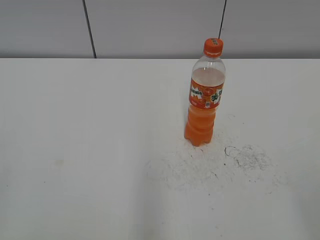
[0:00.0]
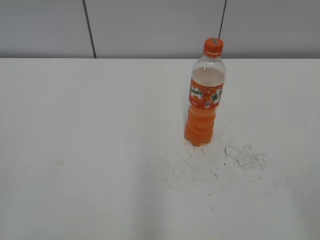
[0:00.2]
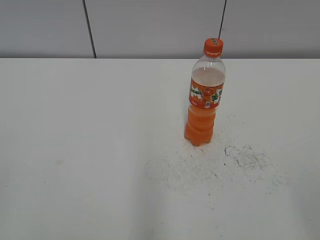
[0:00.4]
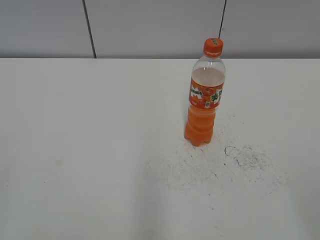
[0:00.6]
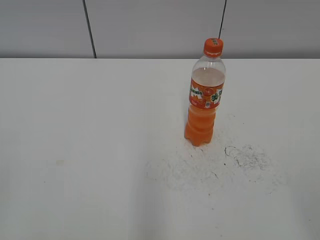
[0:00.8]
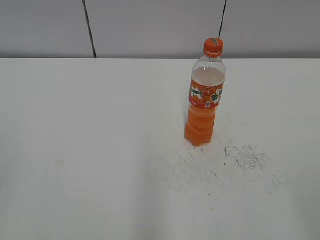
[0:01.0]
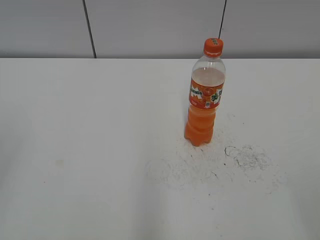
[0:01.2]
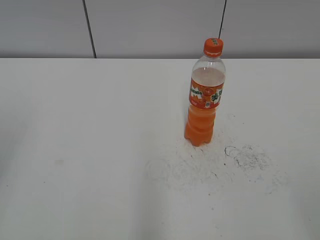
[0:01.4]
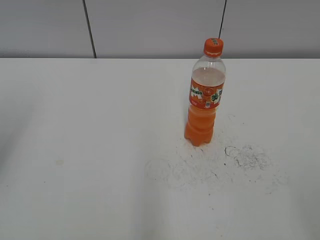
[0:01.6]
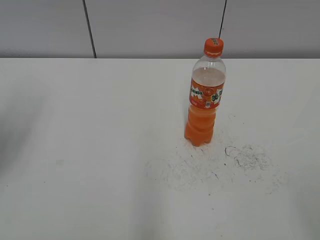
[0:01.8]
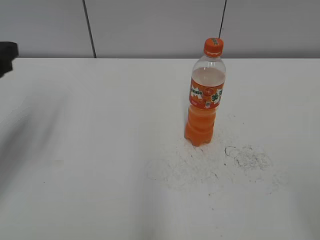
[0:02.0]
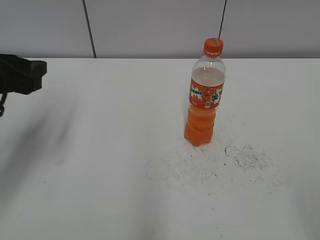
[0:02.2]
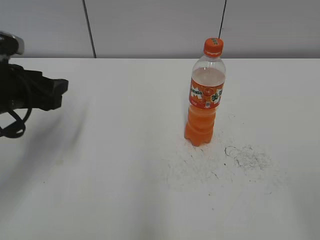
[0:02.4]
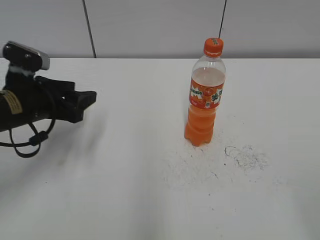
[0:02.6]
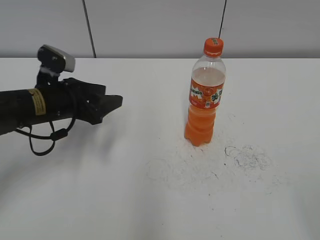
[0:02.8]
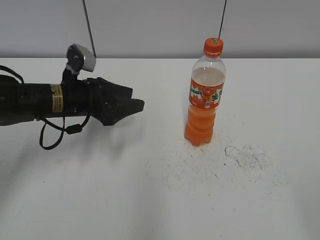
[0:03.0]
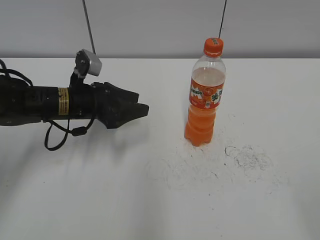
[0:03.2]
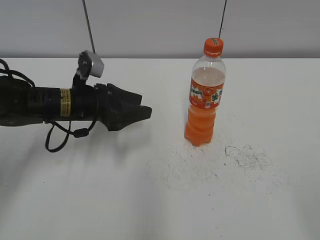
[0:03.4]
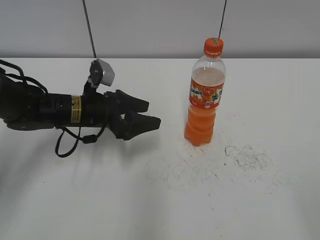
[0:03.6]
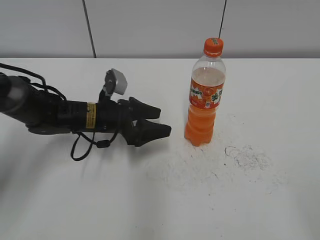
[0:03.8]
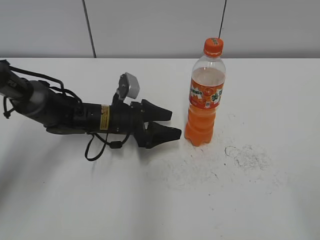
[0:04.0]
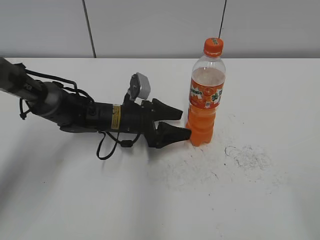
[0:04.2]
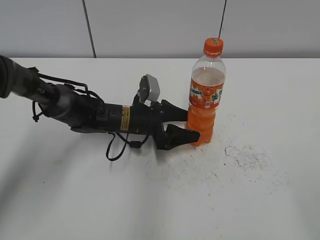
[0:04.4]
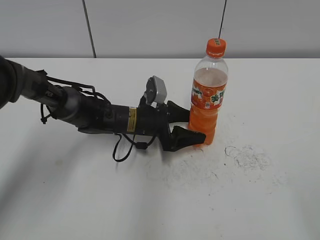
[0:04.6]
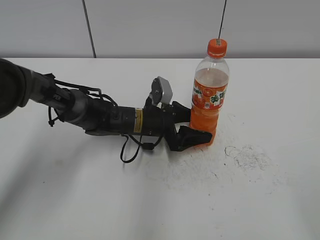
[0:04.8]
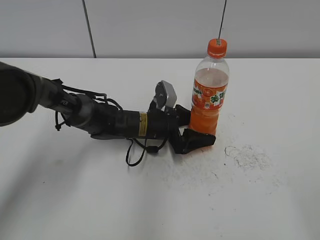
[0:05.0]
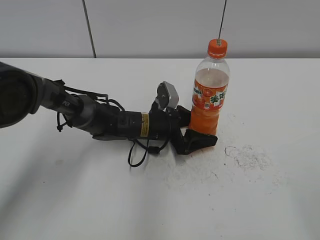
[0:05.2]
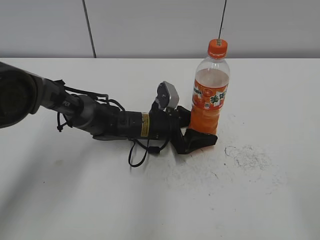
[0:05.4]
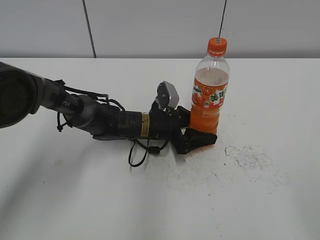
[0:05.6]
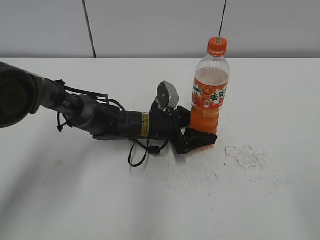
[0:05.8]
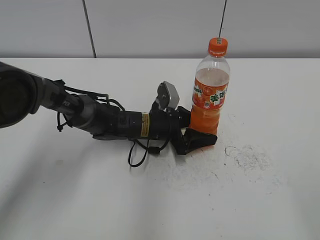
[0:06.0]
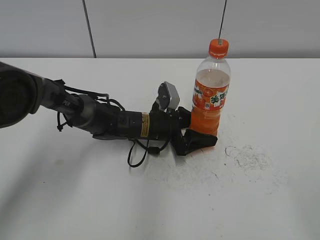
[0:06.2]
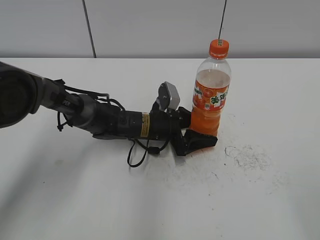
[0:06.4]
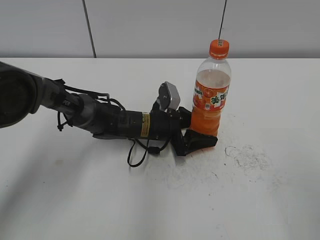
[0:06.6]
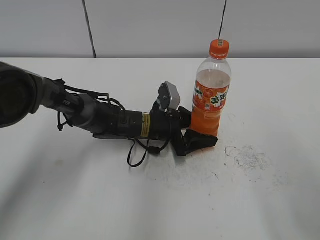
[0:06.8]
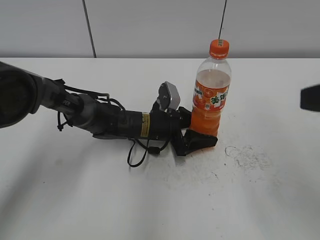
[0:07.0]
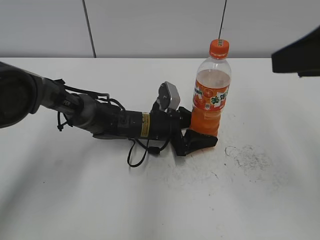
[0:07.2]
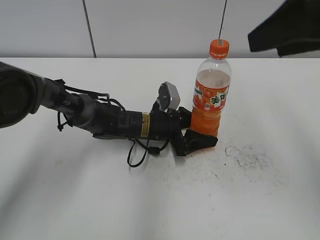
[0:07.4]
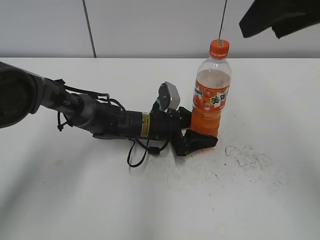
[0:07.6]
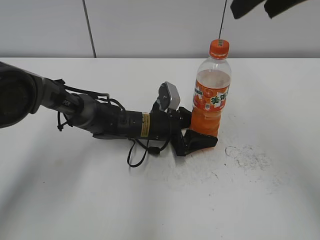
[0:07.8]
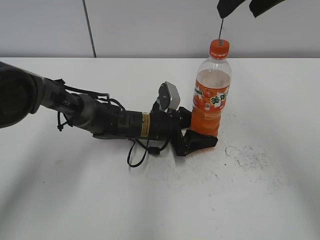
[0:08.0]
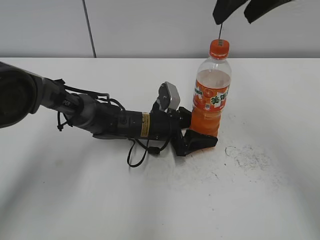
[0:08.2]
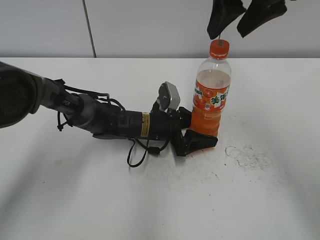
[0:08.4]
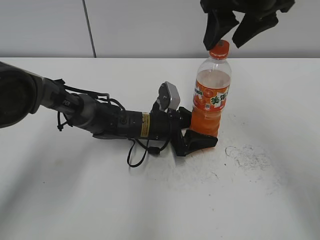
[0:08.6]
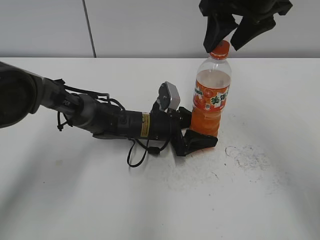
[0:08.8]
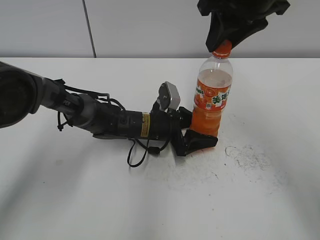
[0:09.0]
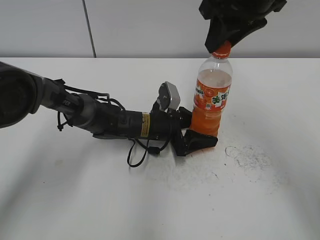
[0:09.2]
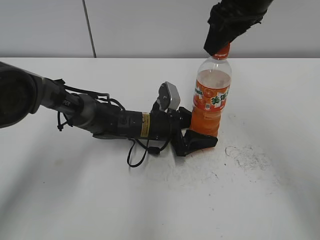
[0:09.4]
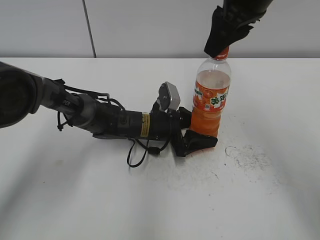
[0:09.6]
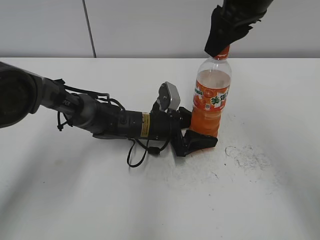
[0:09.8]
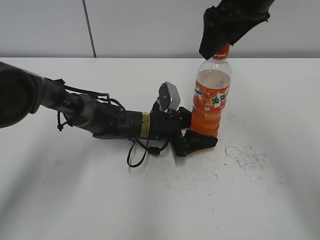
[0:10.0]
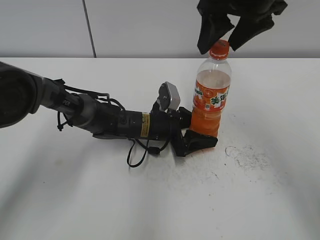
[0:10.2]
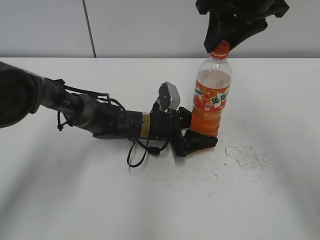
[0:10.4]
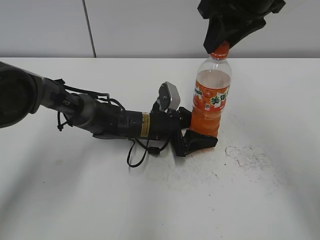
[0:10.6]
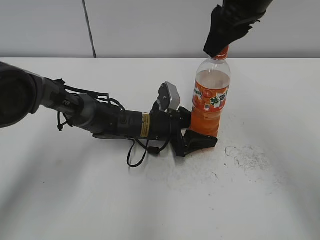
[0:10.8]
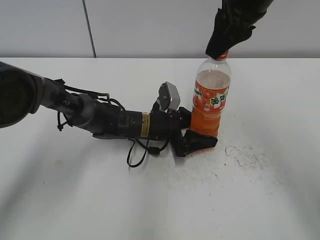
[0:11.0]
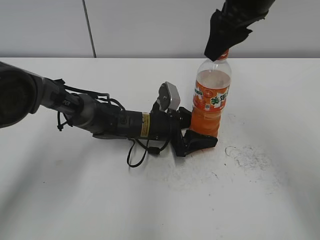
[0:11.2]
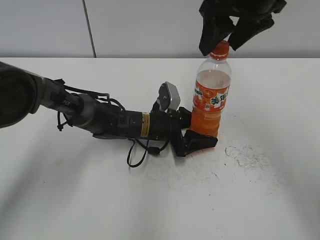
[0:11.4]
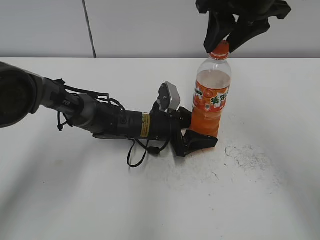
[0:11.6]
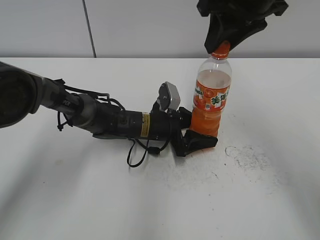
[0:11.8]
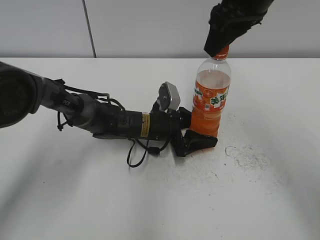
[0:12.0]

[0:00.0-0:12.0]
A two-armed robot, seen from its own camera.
Step, 0:00.0 to 0:06.6: Grab the Mirinda with the left hand.
0:01.6 to 0:03.0: The left gripper is displaced downward, forward and to the right by some 30 cm.
0:03.0 to 0:04.4: The left gripper is displaced to the right and downward by about 15 cm, and opens.
0:04.4 to 0:06.0: The grippers make only small movements.
0:06.0 to 0:07.6: The right gripper heads forward, upward and to the left, covering some 30 cm.
0:07.6 to 0:09.0: The right gripper shifts about 10 cm forward and downward, and closes.
0:09.0 to 0:10.4: The right gripper opens, then closes again.
0:10.4 to 0:12.0: The right gripper opens and closes again.

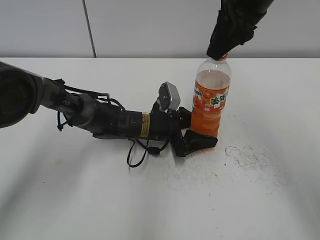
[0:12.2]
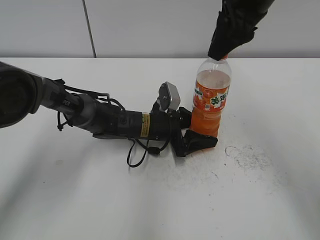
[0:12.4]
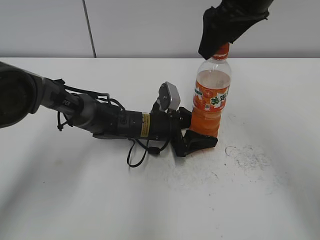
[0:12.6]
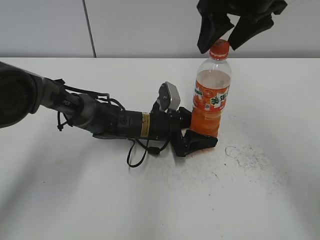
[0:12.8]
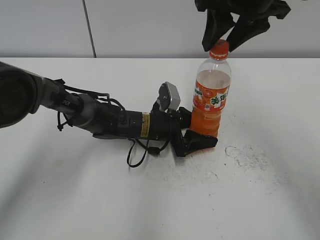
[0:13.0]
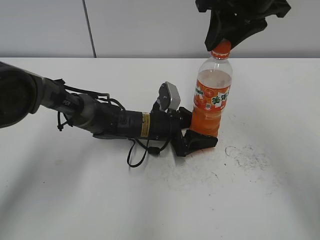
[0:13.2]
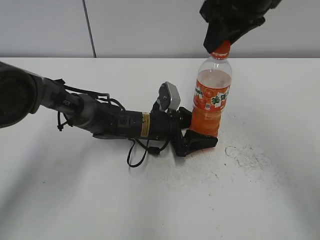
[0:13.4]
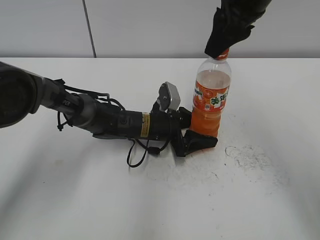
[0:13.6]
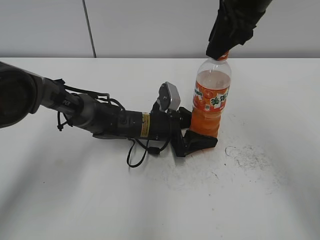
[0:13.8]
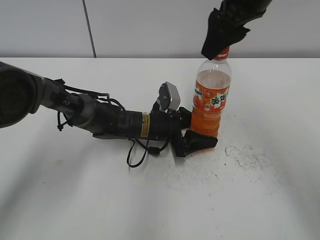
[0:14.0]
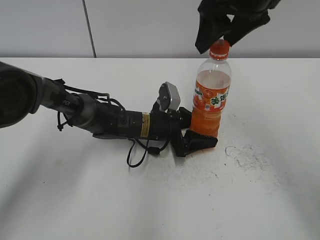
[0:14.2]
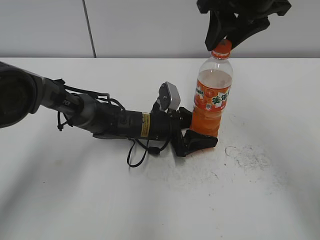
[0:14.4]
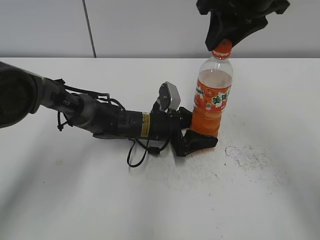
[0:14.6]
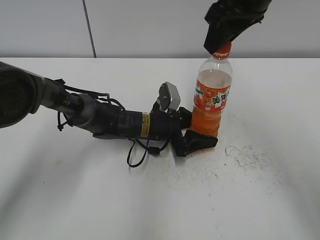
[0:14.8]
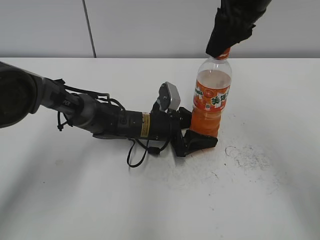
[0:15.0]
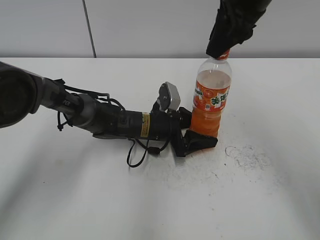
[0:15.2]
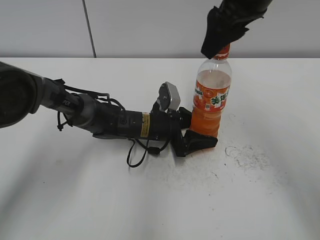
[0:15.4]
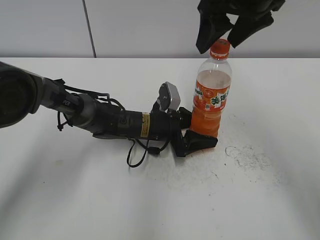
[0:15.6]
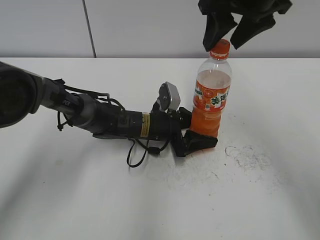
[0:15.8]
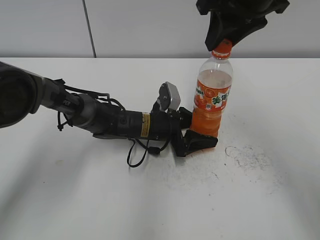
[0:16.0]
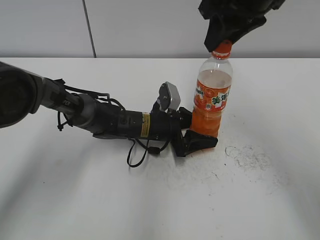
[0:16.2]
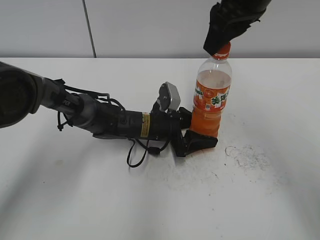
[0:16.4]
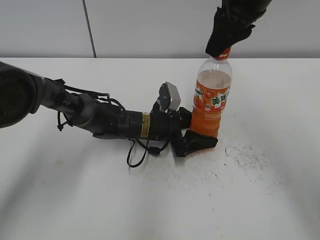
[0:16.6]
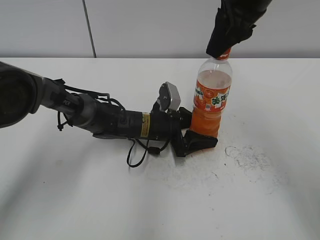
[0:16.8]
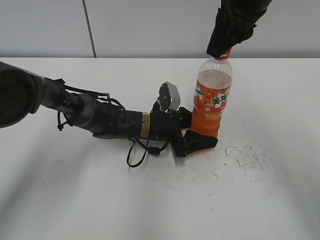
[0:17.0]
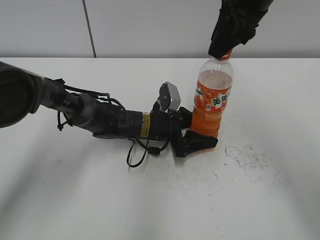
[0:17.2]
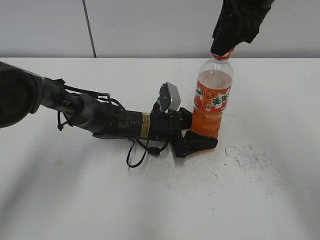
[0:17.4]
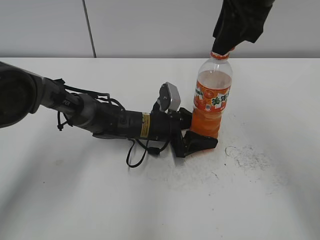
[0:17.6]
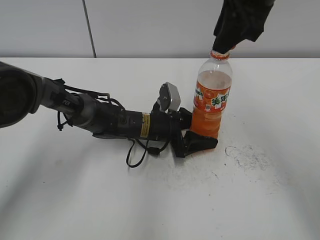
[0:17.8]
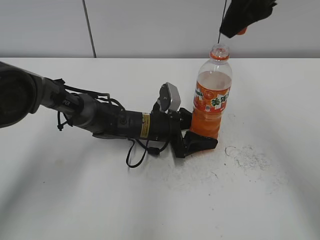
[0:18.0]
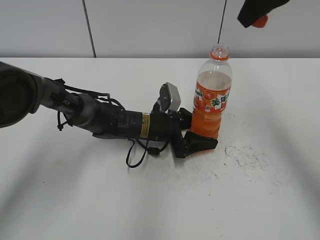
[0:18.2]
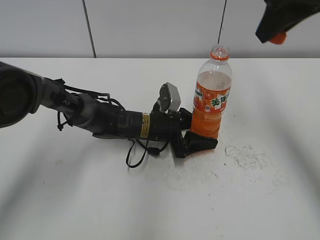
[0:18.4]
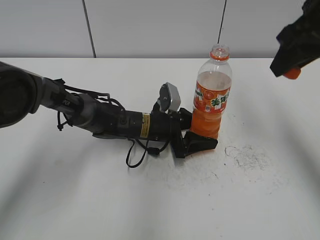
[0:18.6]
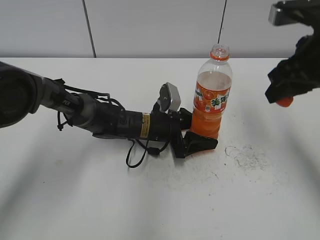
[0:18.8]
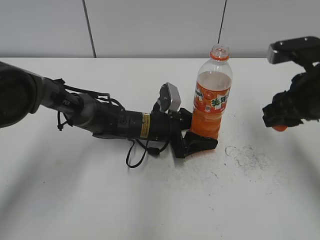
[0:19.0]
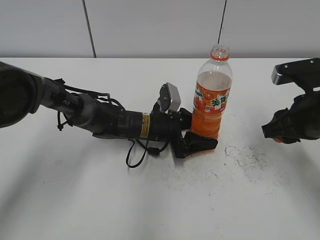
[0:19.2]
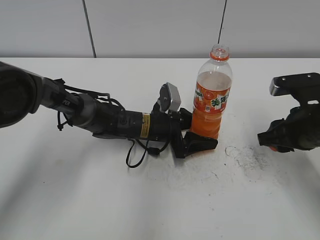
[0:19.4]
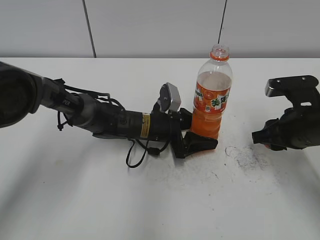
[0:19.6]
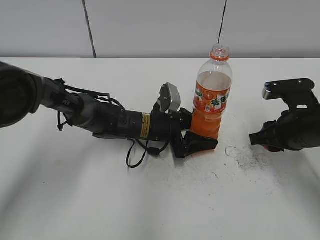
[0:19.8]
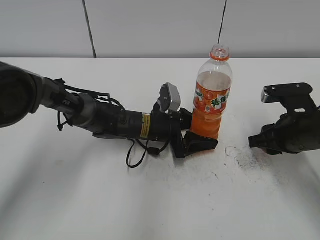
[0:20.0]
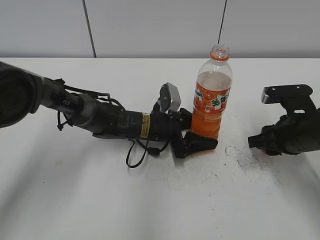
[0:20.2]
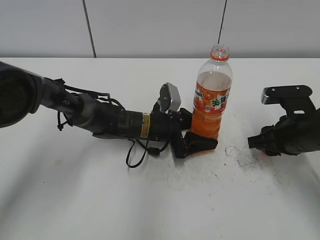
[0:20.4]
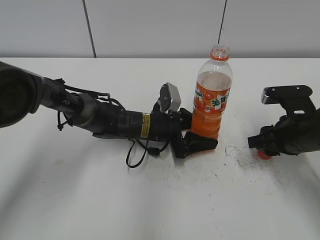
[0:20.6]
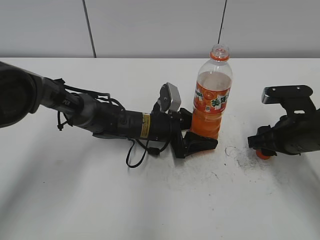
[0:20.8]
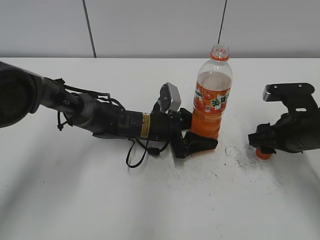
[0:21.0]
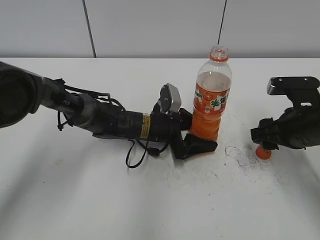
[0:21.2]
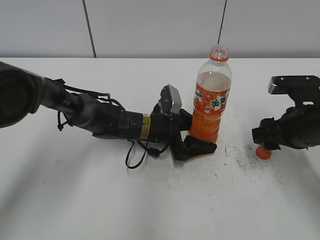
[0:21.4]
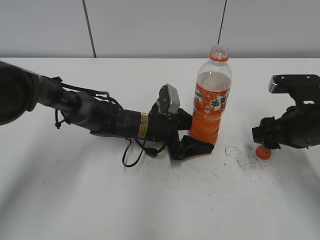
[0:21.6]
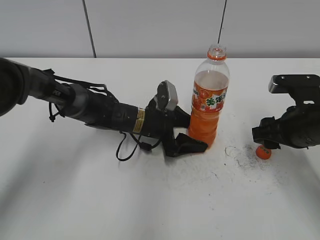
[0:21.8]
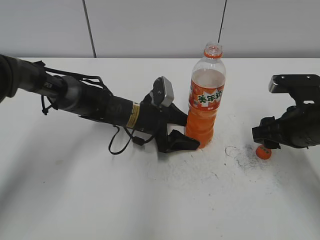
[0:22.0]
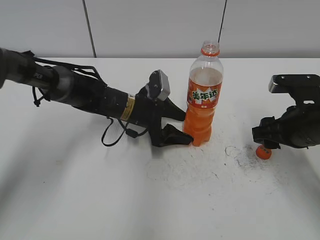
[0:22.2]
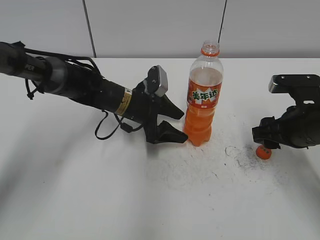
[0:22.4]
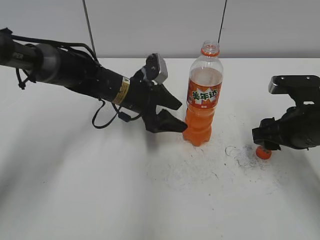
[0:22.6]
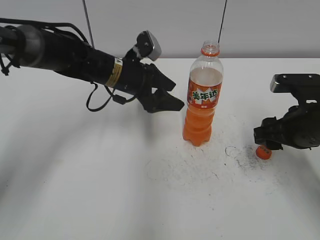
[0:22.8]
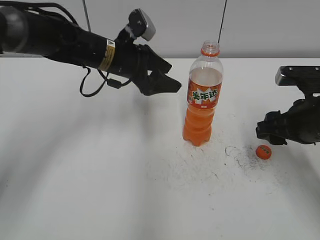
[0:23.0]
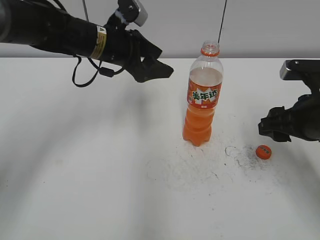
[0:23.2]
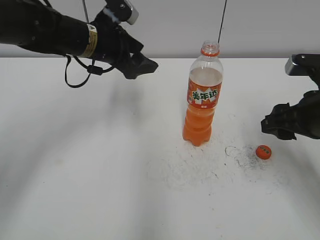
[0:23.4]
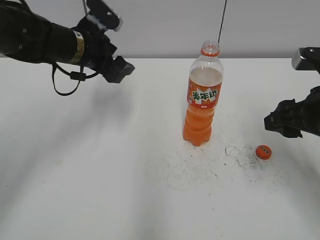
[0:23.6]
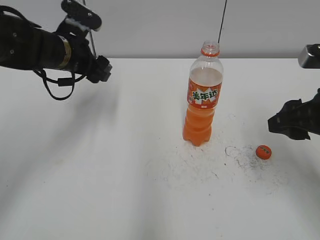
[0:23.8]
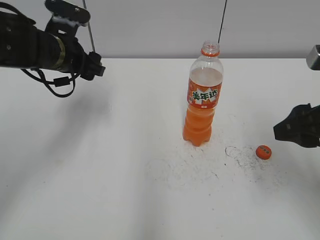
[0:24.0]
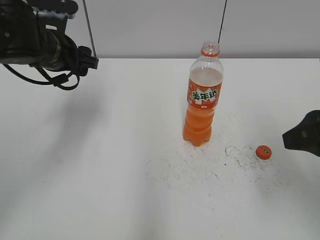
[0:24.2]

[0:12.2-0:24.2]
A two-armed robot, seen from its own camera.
Step, 0:12.2 to 0:17.6: Twist the bottle cap with the right hand.
Step, 0:17.8 to 0:21.4: Place the bottle cap on the table with the right hand.
Step, 0:21.6 to 0:22.4: Place the Mirinda with the left hand.
0:16.6 to 0:18.2: The right gripper changes place by approximately 5 cm.
0:18.2 to 0:19.8: The right gripper travels downward by some 25 cm.
0:19.8 to 0:21.2: The right gripper opens its fingers.
0:21.2 to 0:22.6: The left gripper shifts approximately 5 cm upward.
0:22.6 to 0:24.2: The right gripper heads upward and backward, covering roughly 15 cm; the left gripper goes approximately 15 cm to the left and upward.
